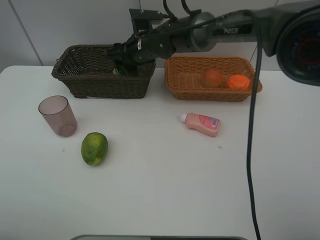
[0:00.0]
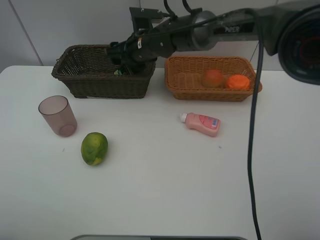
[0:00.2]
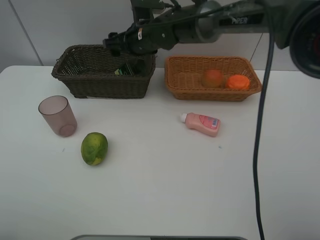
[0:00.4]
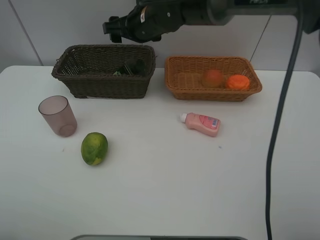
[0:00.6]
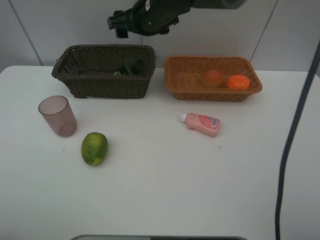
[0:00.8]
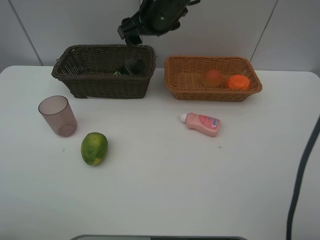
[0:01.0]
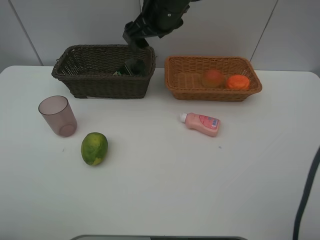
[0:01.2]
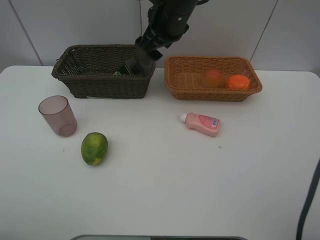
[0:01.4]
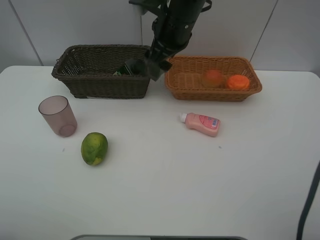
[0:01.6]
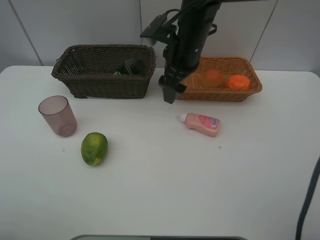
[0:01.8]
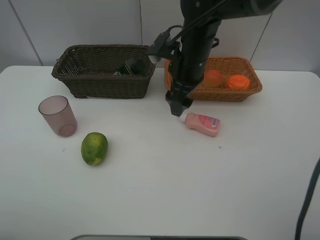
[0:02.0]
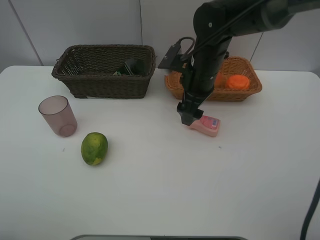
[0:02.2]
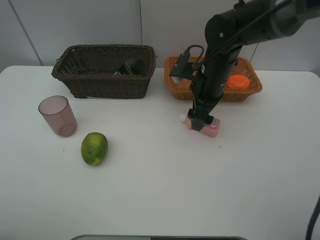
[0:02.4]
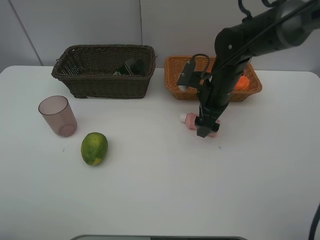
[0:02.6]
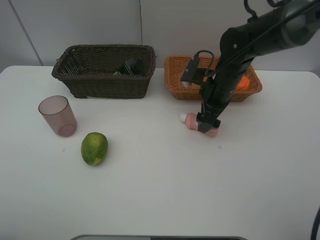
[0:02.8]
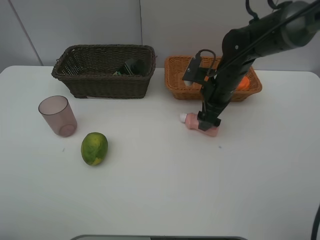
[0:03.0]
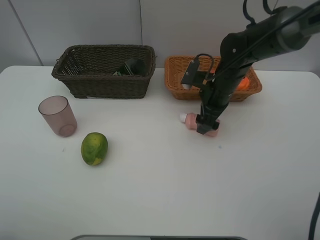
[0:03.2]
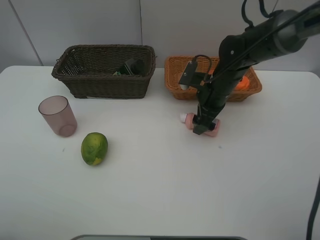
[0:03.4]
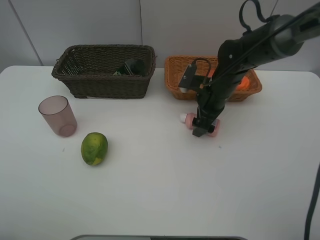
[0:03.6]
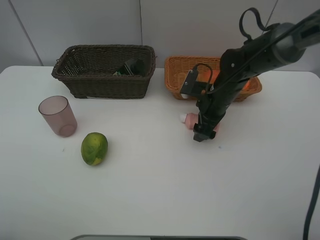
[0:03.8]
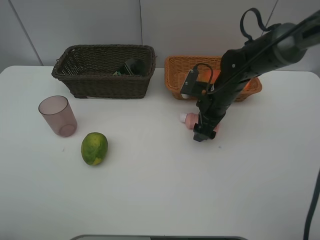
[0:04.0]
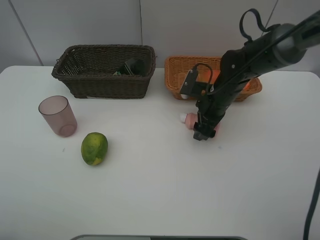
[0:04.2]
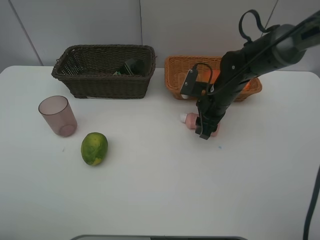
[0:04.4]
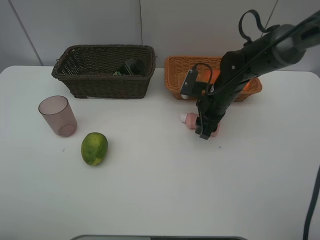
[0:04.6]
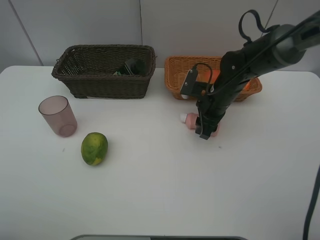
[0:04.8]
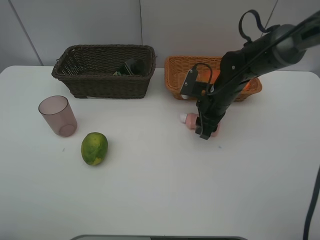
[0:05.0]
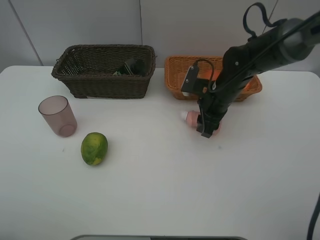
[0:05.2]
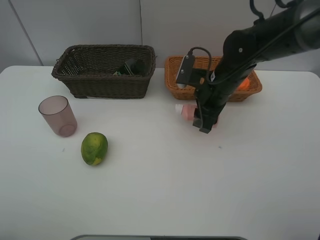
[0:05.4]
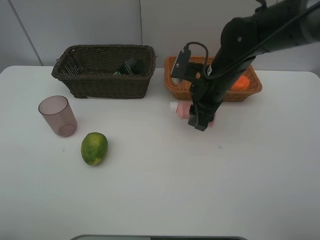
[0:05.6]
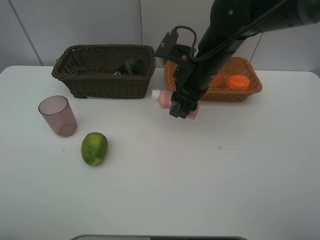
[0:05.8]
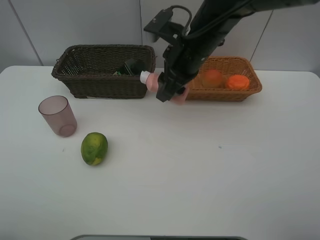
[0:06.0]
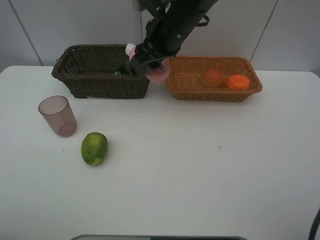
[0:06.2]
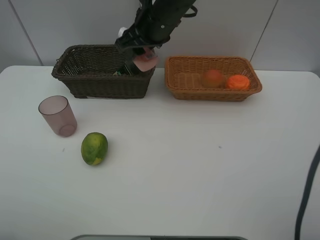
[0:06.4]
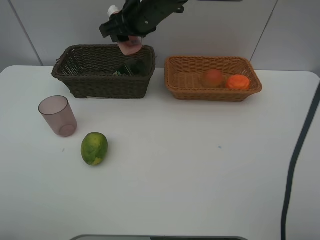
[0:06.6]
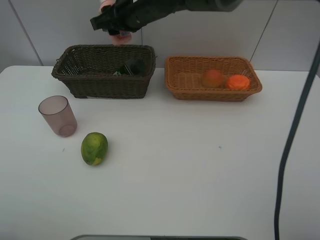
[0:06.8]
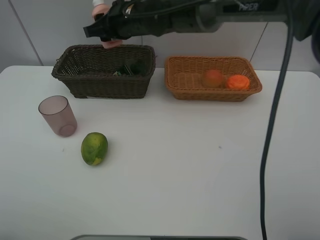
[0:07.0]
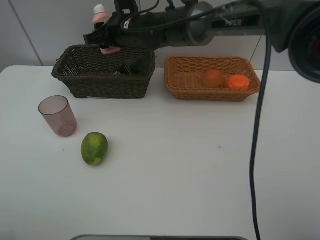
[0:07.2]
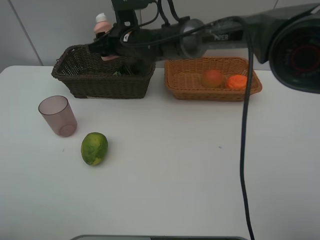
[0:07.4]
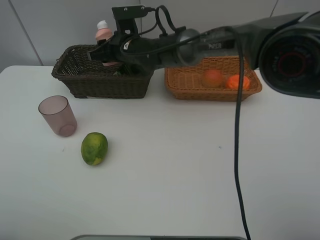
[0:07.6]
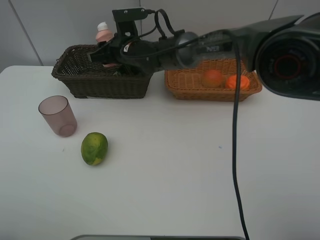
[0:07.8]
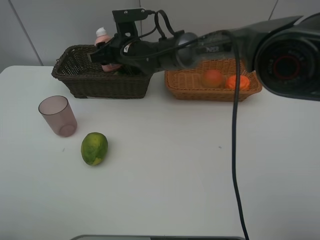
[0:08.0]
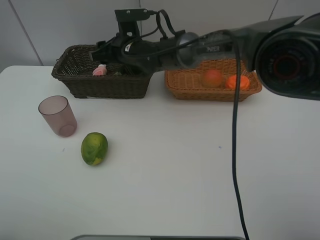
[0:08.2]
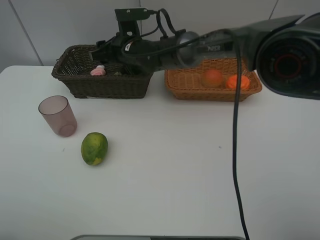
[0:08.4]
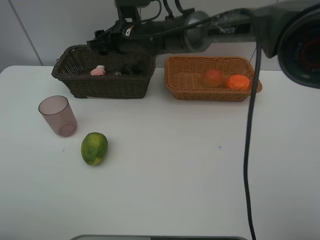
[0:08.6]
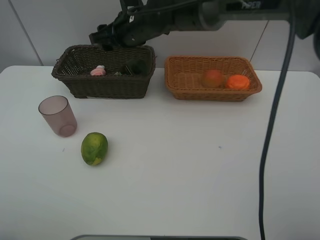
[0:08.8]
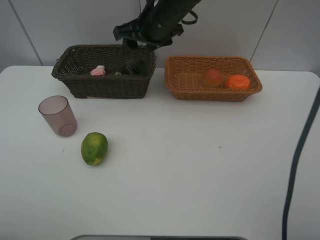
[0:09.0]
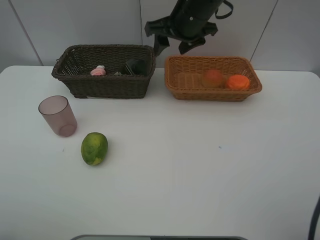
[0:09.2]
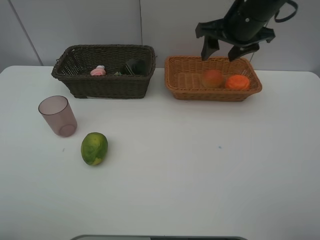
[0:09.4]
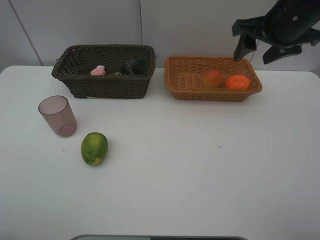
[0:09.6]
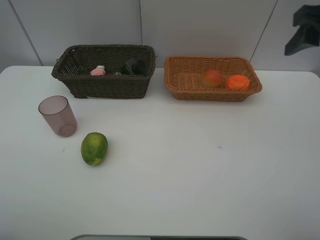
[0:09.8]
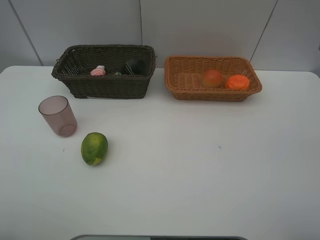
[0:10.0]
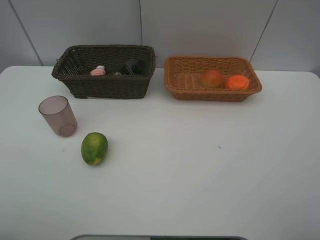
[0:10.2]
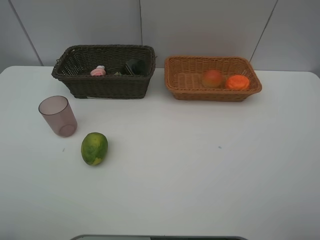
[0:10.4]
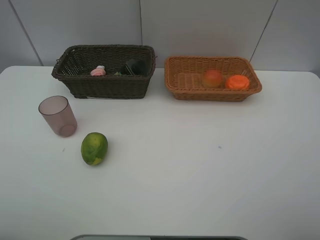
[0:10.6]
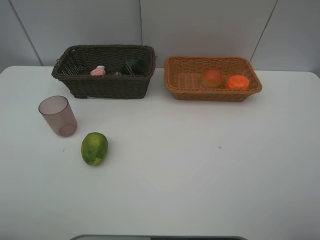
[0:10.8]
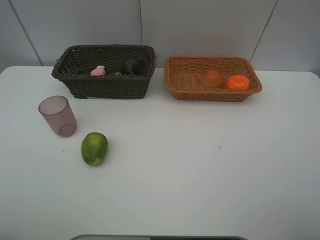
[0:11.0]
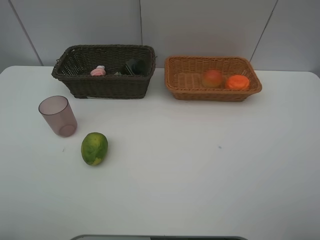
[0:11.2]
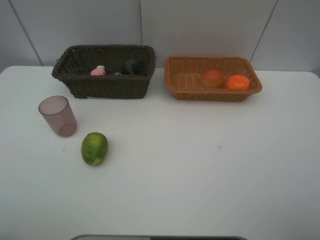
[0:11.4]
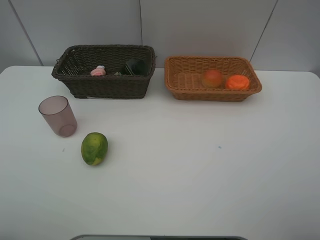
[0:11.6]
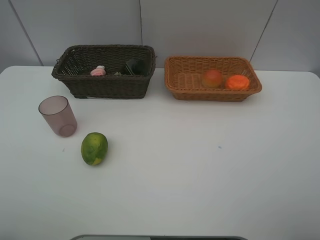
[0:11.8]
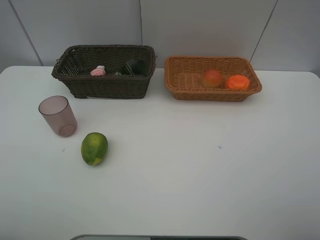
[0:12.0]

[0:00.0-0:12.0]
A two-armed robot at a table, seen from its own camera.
Task of the whole recording: place multiple objects separately in different baskets.
0:00.0 to 0:01.6: The right gripper heads upward, backward and to the right, covering approximately 15 cm.
0:01.6 to 0:03.0: The right gripper heads downward and to the right, covering roughly 15 cm.
0:03.0 to 0:04.4: The right gripper closes.
0:04.4 to 0:06.0: The right gripper heads upward and to the left, covering roughly 15 cm.
0:06.0 to 0:07.6: The right gripper is displaced to the left, forward and downward by about 15 cm.
0:07.6 to 0:09.0: The right gripper goes about 15 cm upward and to the right.
0:09.0 to 0:10.4: The right gripper moves backward and to the right, some 50 cm.

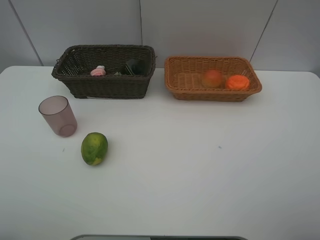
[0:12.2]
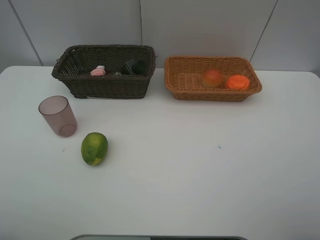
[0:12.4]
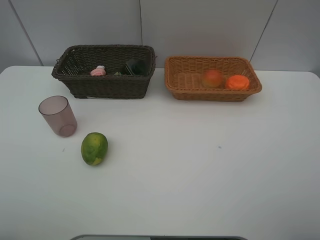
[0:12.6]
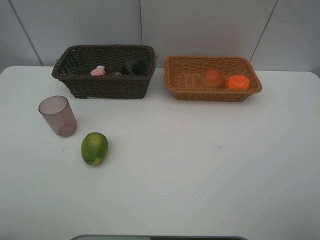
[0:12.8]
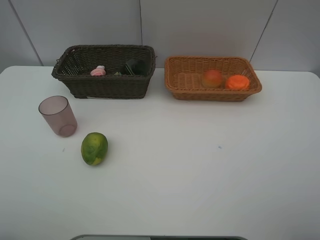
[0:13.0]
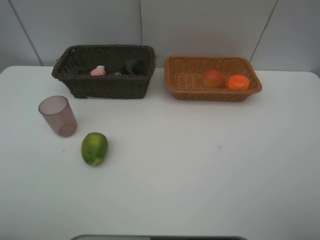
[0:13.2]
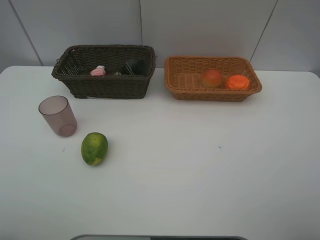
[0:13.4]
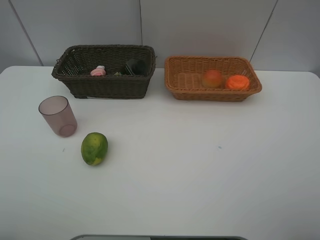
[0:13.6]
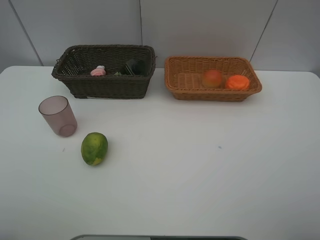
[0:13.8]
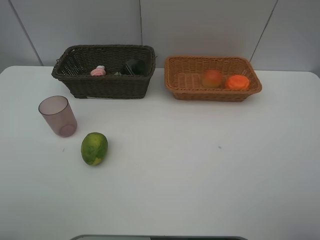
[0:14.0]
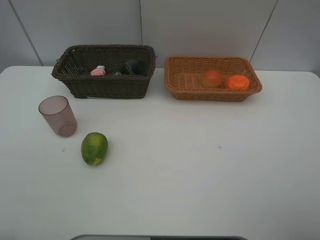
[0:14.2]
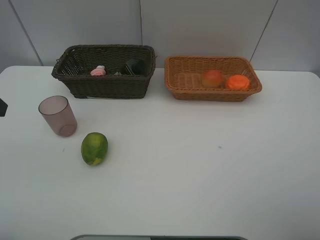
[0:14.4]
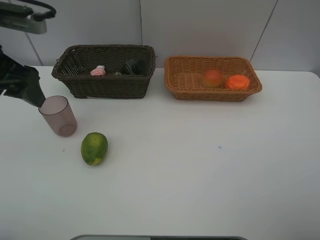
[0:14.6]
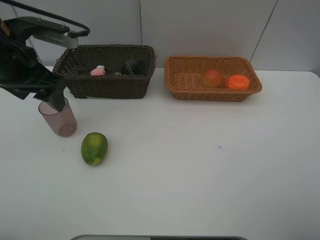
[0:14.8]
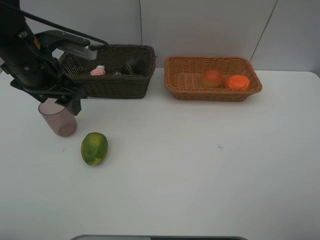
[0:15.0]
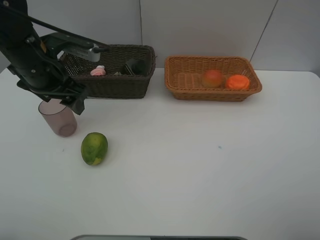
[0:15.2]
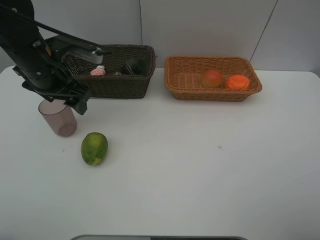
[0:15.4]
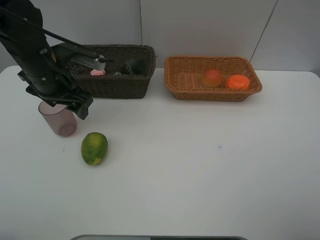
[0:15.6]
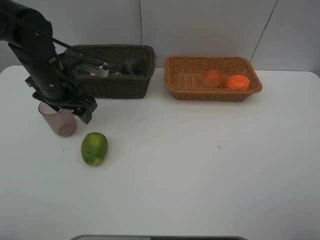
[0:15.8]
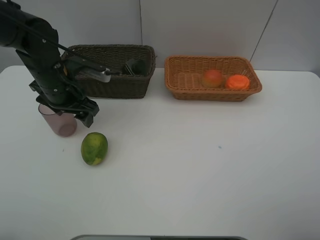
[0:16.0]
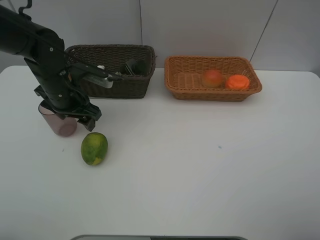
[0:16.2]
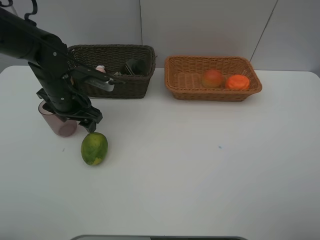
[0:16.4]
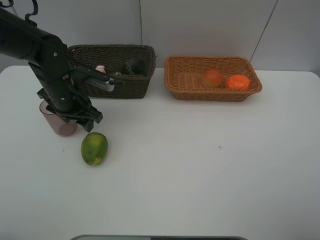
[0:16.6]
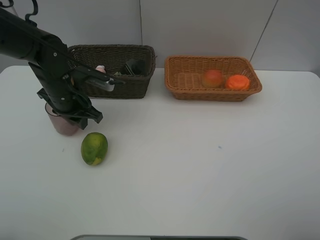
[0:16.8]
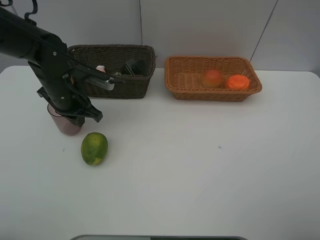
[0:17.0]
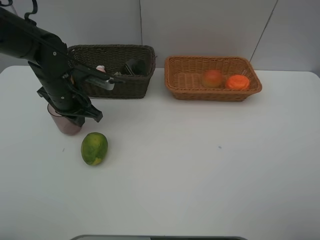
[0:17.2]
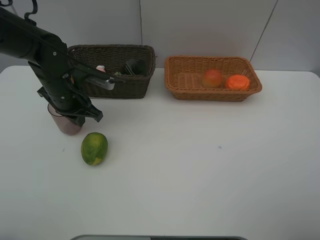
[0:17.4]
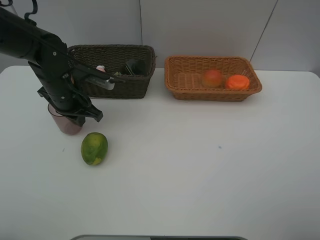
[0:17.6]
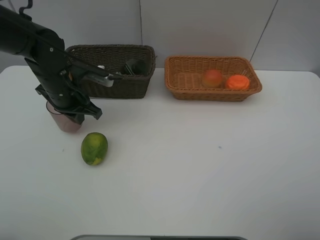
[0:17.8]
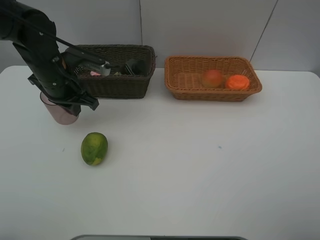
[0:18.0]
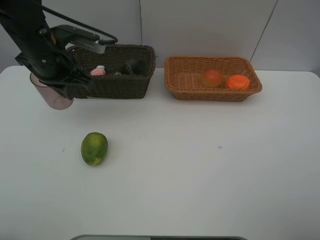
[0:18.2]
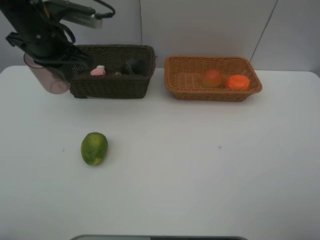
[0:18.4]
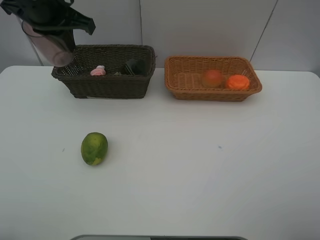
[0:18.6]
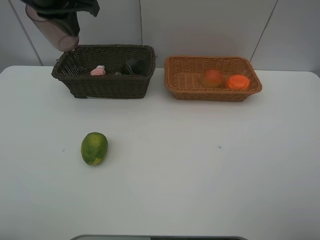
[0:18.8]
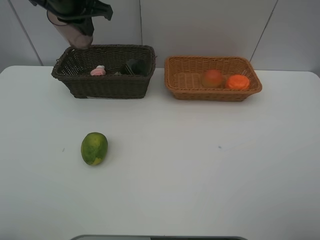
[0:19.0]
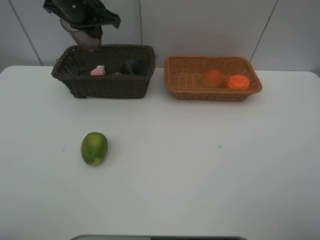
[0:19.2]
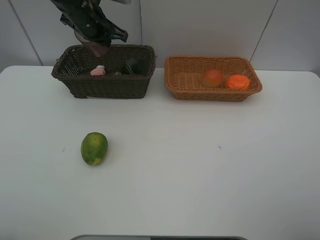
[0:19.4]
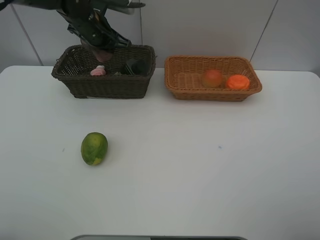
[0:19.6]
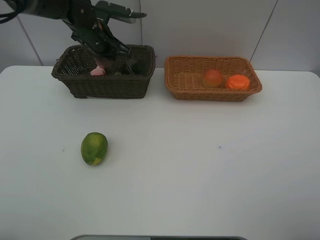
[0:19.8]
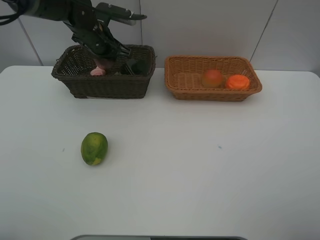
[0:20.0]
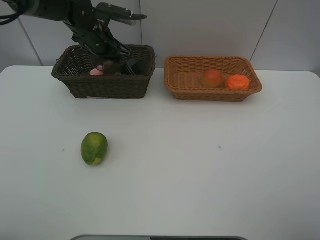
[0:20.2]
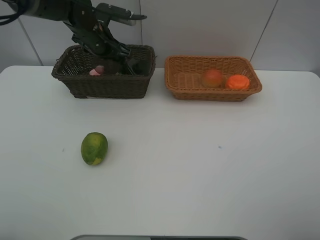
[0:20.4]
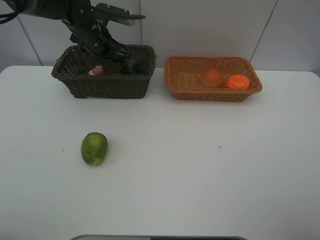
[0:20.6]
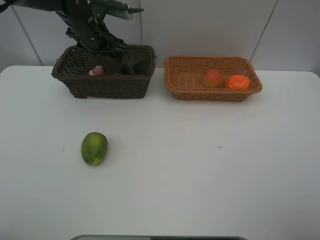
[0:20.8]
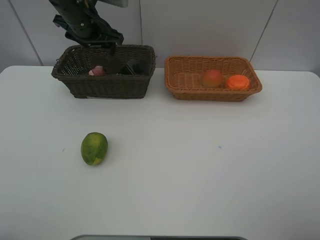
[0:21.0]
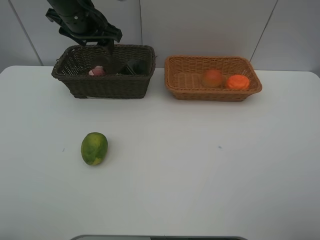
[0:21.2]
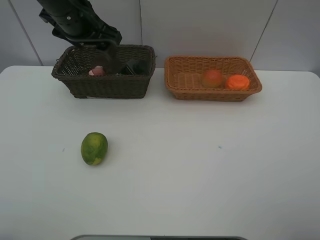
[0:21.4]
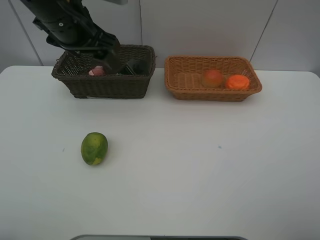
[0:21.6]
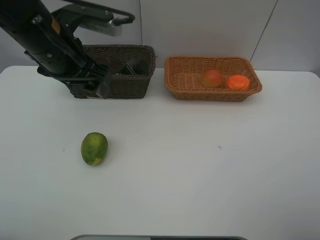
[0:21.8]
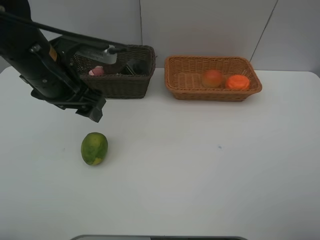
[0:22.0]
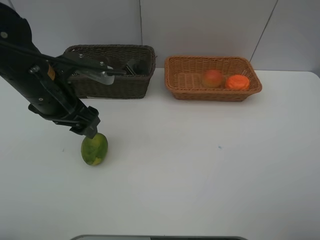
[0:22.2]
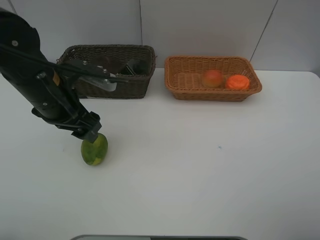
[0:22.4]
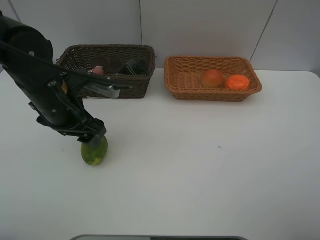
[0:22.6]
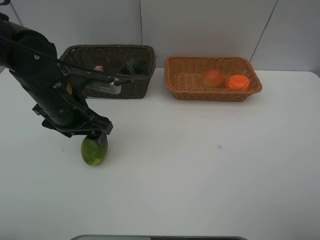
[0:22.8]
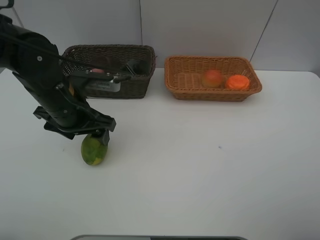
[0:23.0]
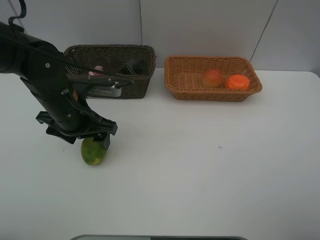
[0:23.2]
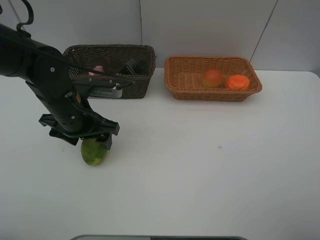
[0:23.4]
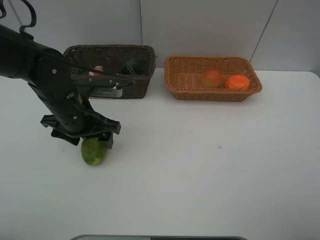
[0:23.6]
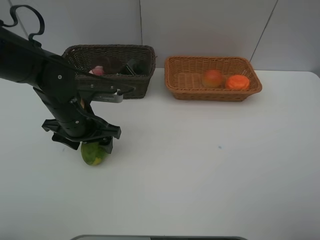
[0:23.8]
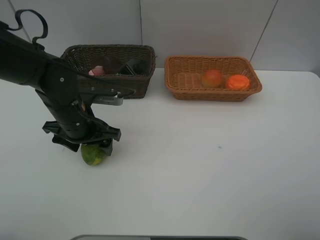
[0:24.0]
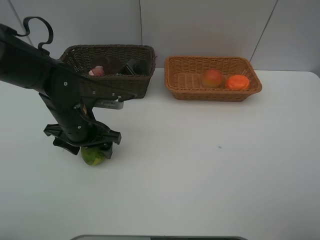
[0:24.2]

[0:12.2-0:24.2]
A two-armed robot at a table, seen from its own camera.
Task of the whole recording: place multiple objects separately in different baskets.
0:13.8 to 0:15.2: The left gripper goes some 25 cm forward.
0:15.2 to 0:16.6: The left gripper shifts approximately 10 cm downward.
0:16.6 to 0:18.2: The left gripper heads upward, covering approximately 10 cm, and closes its fingers.
0:18.2 to 0:19.8: The left gripper goes roughly 15 cm forward, and travels upward and back again, some 10 cm each way.
0:19.8 to 0:21.2: The left gripper heads upward and backward, covering about 10 cm, and opens its fingers.
0:21.2 to 0:22.6: The left gripper travels backward and downward by about 15 cm.
0:22.6 to 0:24.2: The left gripper moves downward, about 5 cm.
